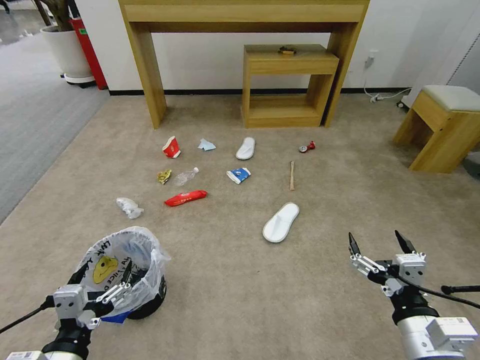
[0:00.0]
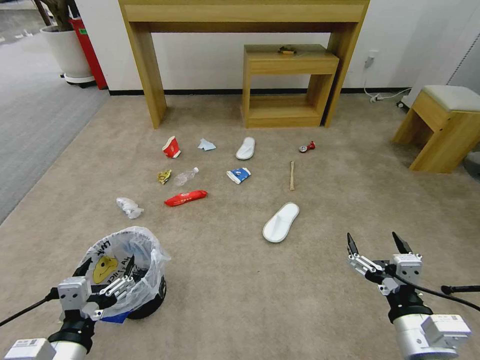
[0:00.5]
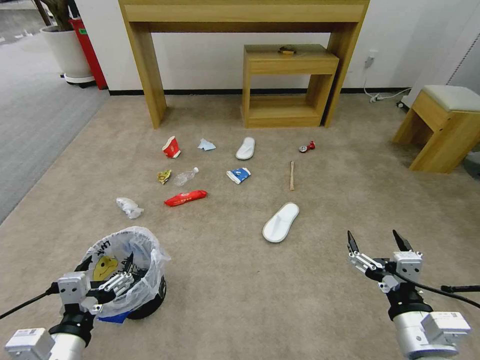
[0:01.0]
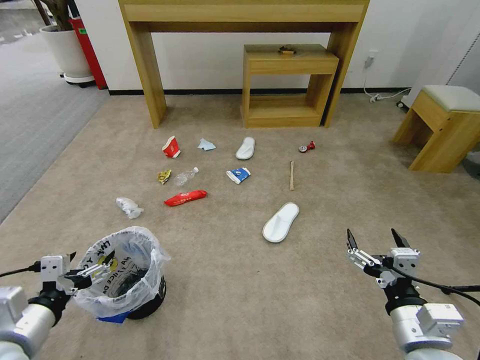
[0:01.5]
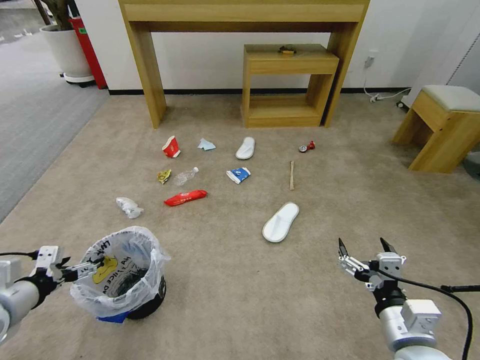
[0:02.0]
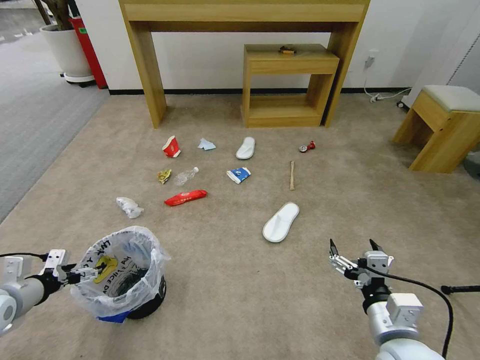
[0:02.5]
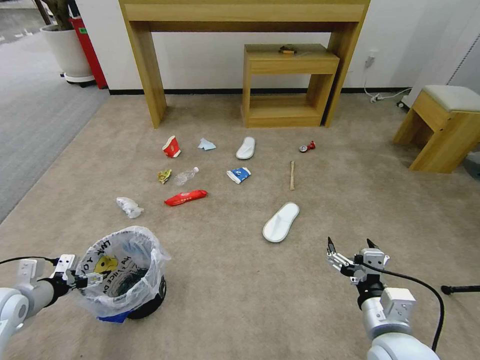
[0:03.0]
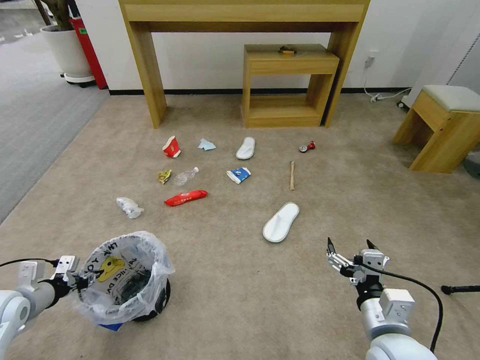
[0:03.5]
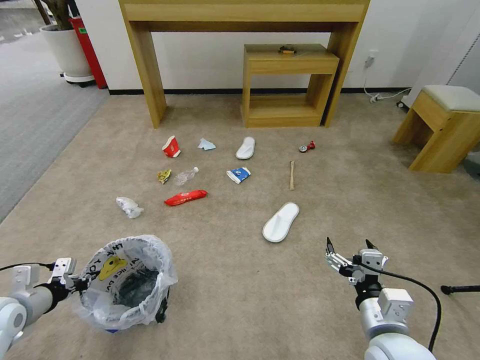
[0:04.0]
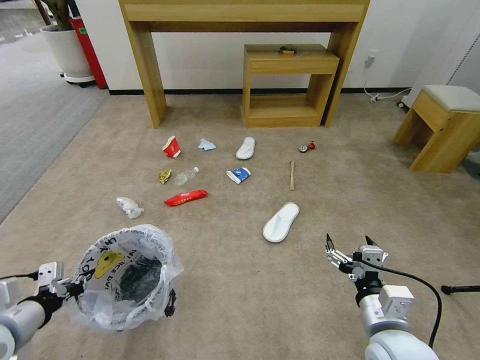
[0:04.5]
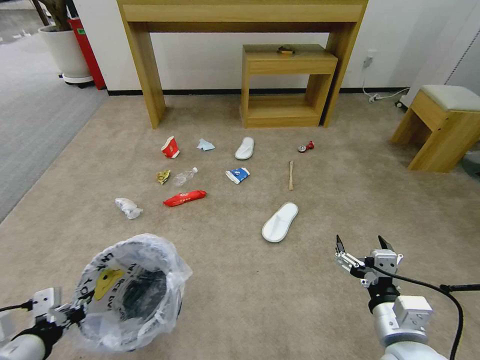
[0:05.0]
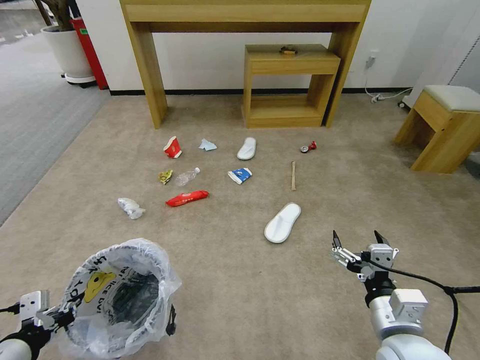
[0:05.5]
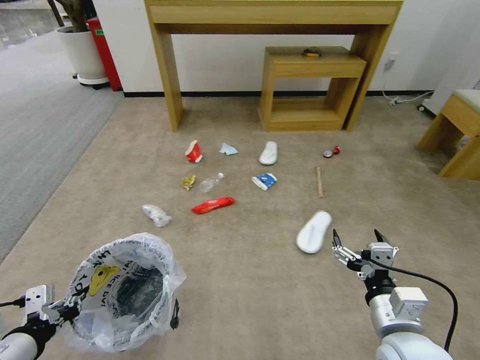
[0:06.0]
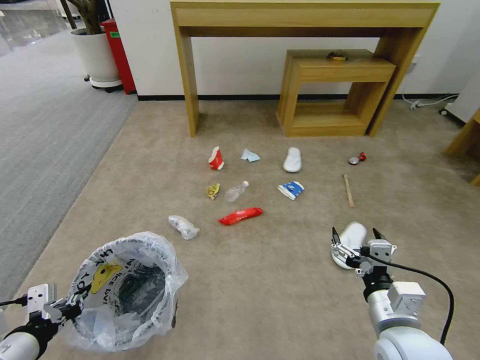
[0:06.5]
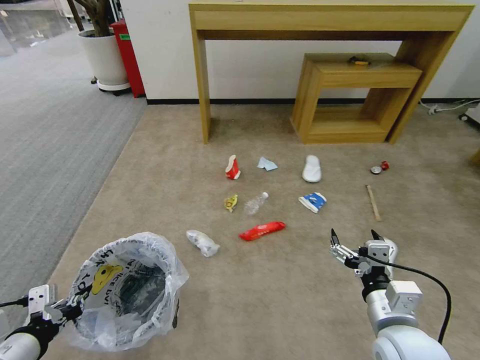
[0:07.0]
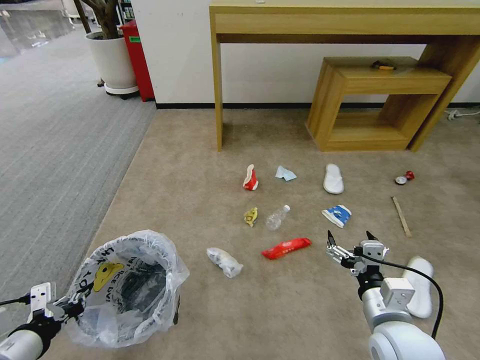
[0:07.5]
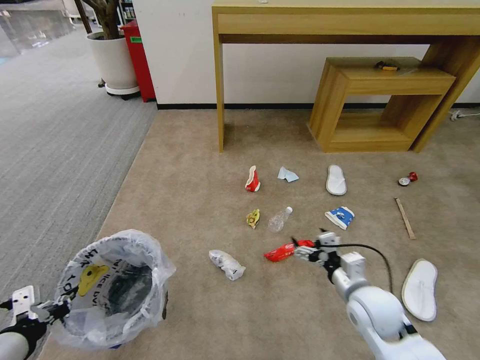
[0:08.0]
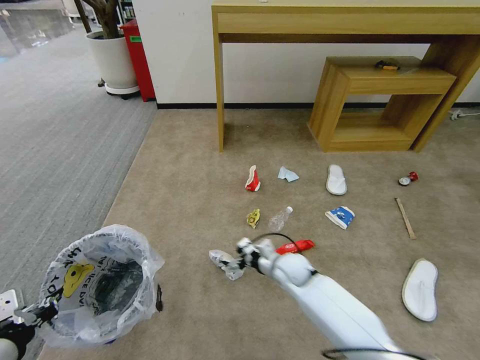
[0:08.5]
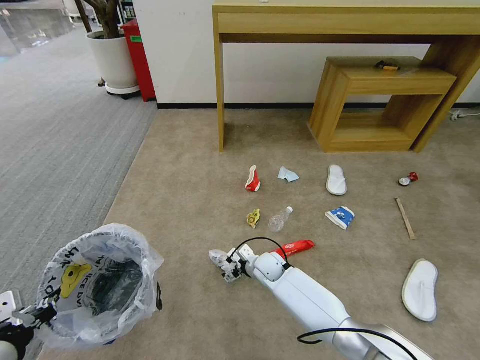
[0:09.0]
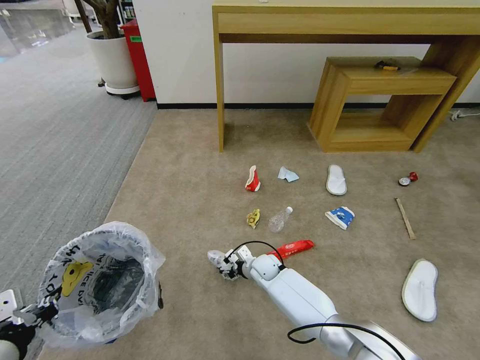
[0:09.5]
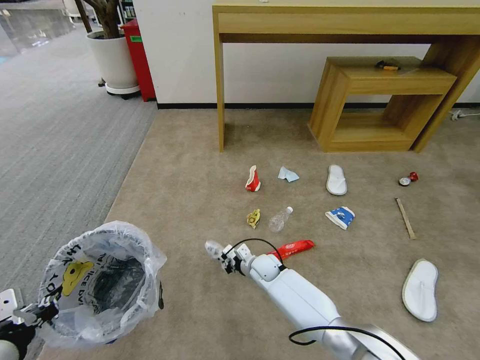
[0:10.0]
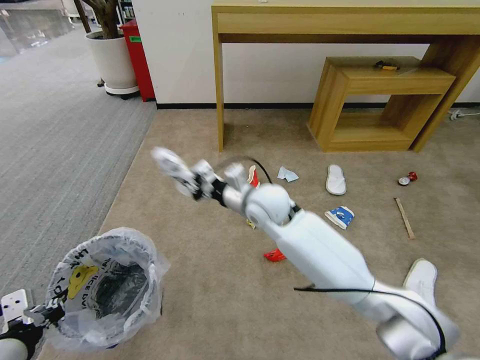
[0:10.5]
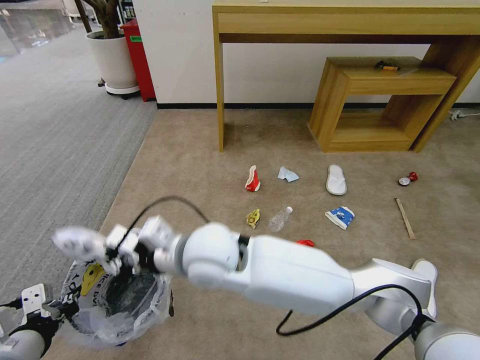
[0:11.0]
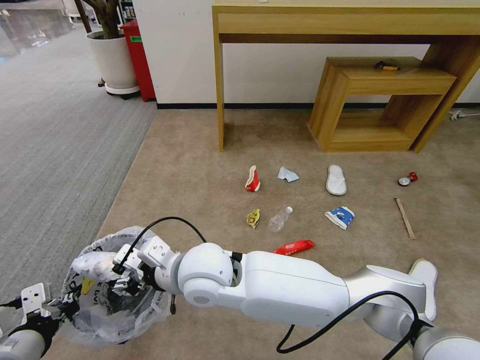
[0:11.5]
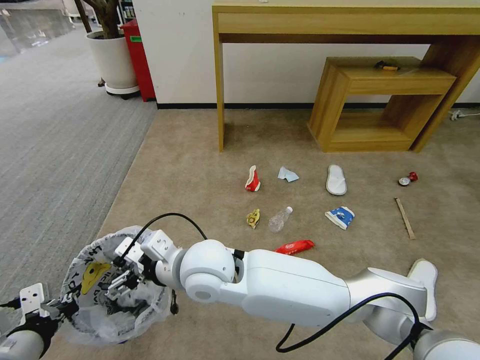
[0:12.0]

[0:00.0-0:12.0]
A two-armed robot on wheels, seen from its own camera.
Task of the whole recording: Pick up the trash bin and place the garbage on the floor into it.
0:02.0 to 0:04.0: The left gripper heads downward, covering roughly 5 cm, and closes its fingers.
0:04.0 to 0:06.0: The left gripper travels backward, to the right and upward by roughly 15 cm.
0:06.0 to 0:08.0: The right gripper goes about 10 cm forward and downward.
0:08.0 to 0:10.0: The right gripper moves to the left, forward and downward, about 30 cm, and closes its fingers.
0:10.0 to 0:12.0: The right gripper heads upward, to the left and backward, covering approximately 35 cm, and opens.

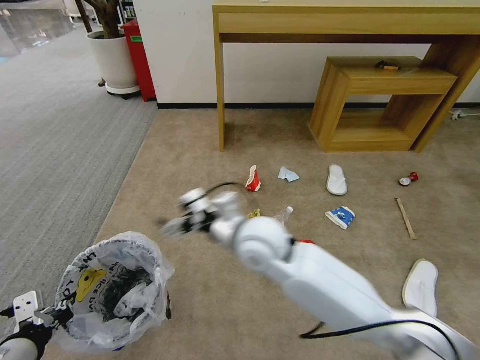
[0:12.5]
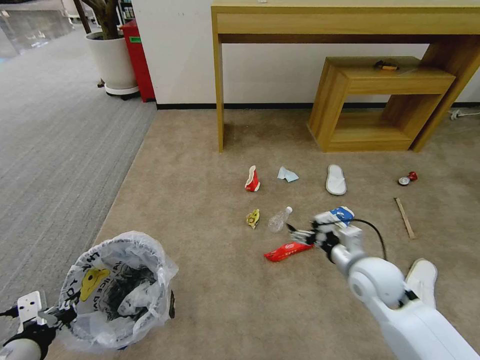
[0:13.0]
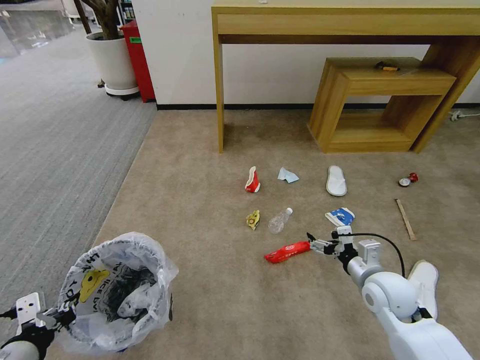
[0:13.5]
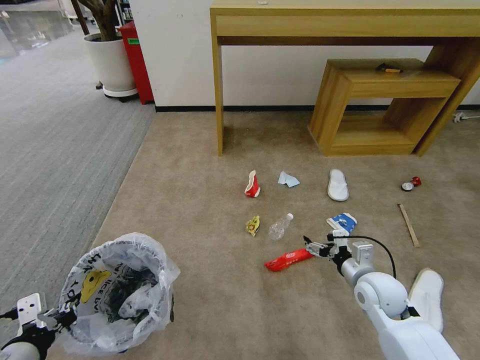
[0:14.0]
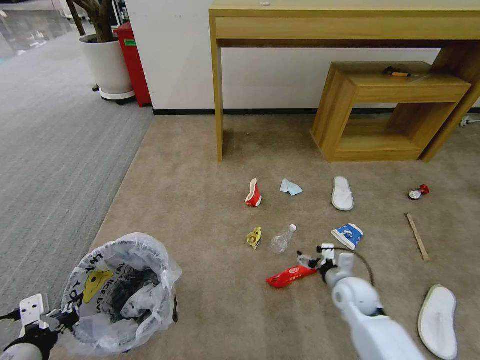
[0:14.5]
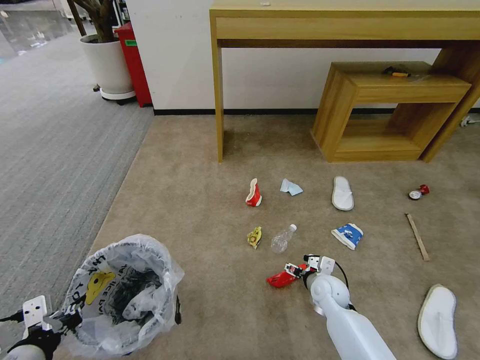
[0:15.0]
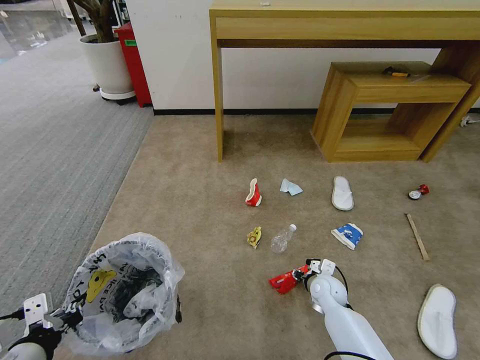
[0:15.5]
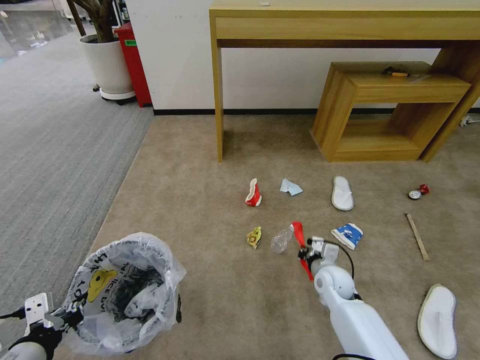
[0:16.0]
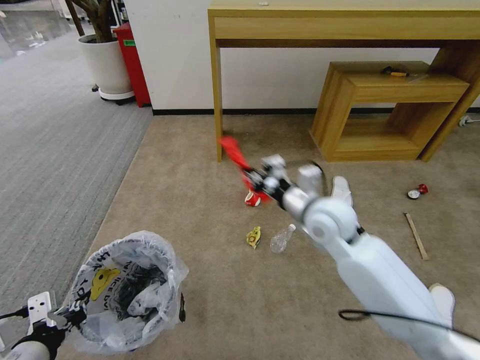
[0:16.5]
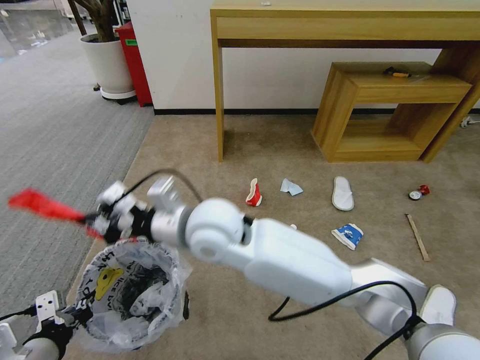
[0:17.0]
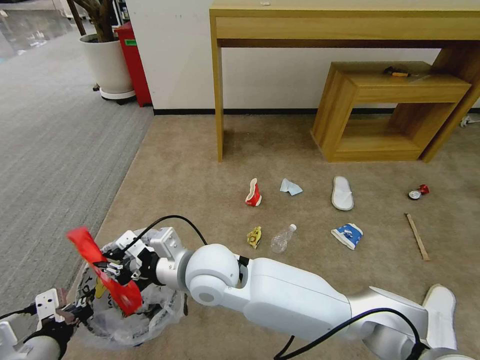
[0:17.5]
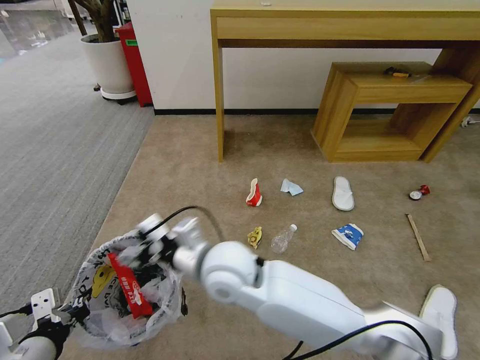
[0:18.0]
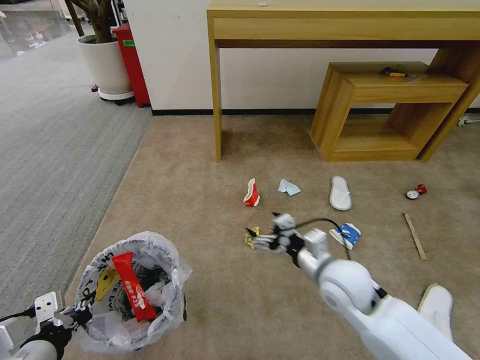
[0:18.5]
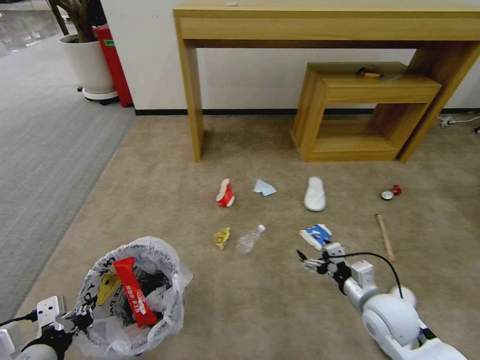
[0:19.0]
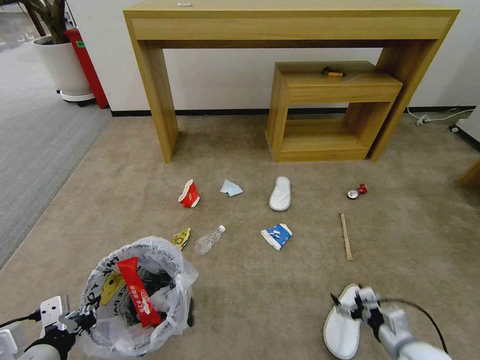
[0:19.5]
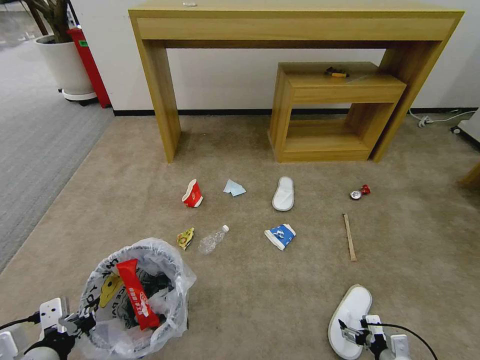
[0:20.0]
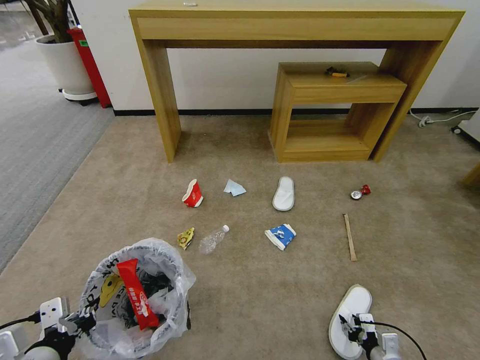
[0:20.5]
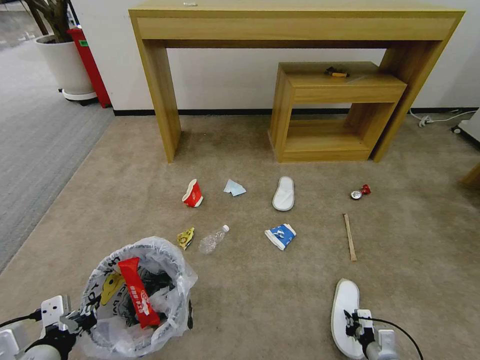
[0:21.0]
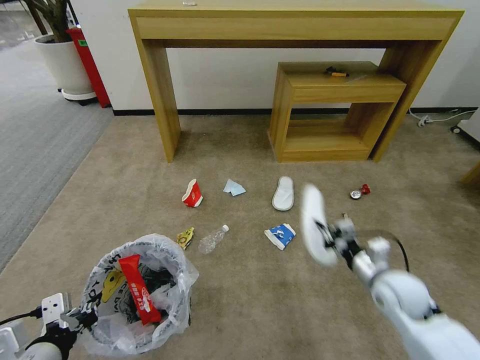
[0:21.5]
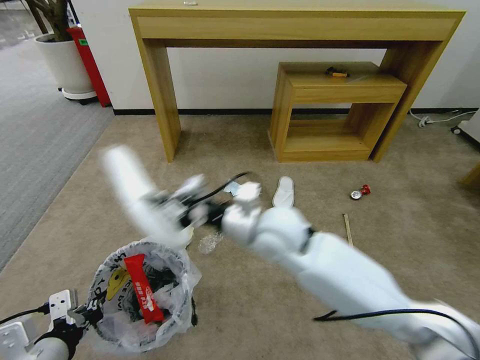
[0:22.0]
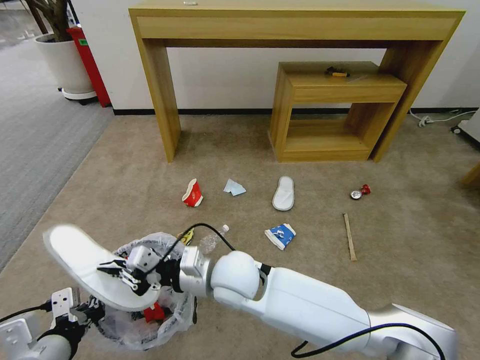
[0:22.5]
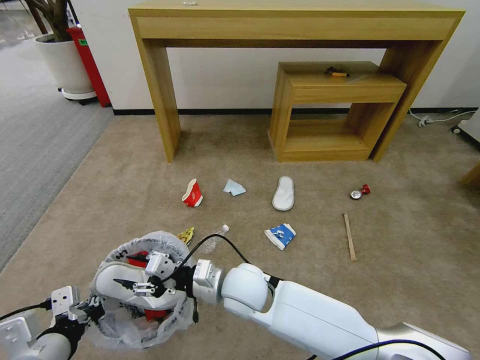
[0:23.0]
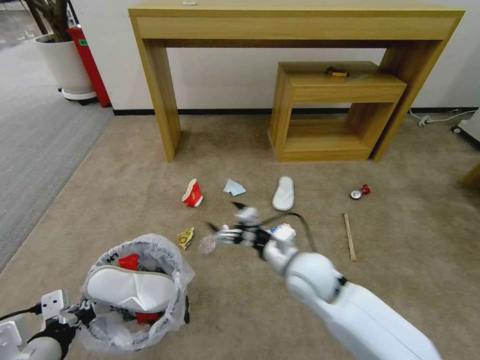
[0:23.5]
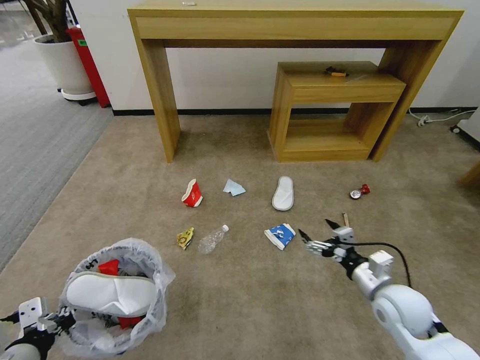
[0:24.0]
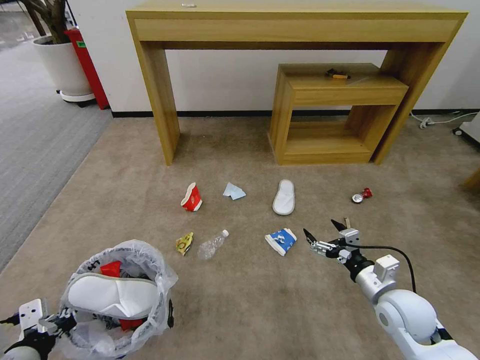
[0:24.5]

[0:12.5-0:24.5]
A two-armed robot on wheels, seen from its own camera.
Task of the whole recording: Pick up the trash bin and place the garbage on the floor into it.
0:12.5 to 0:14.5: The right gripper travels to the right and downward by about 35 cm.
0:14.5 to 0:16.5: The right gripper travels upward and to the left by roughly 25 cm, and closes its fingers.
0:16.5 to 0:18.5: The right gripper goes approximately 15 cm downward and backward, reaches some 20 cm to the left, then returns, and opens up.
0:18.5 to 0:20.5: The right gripper shifts roughly 30 cm downward, to the right and backward, and closes.
0:20.5 to 0:22.5: The right gripper is displaced to the left and upward by some 50 cm, and closes.
0:22.5 to 0:24.5: The right gripper goes about 35 cm to the right, and opens up. Meanwhile the left gripper ends up some 5 cm from where it was.

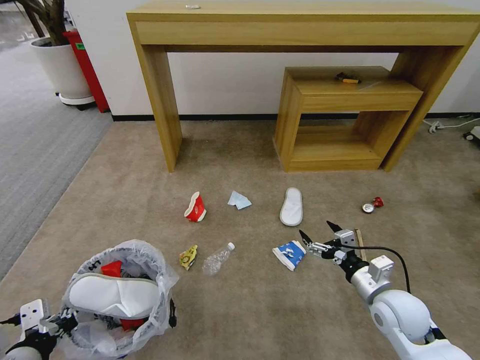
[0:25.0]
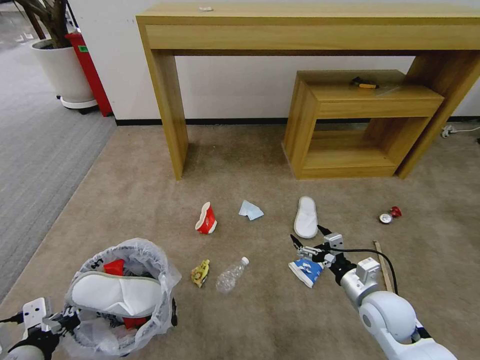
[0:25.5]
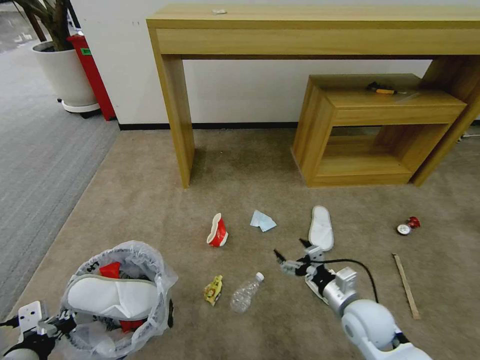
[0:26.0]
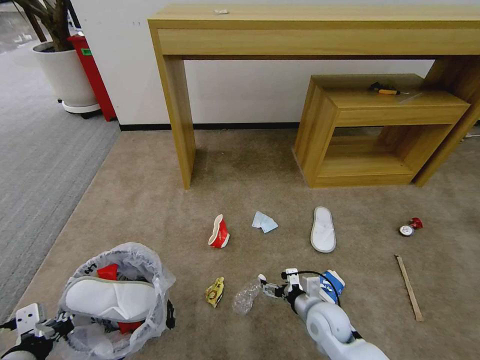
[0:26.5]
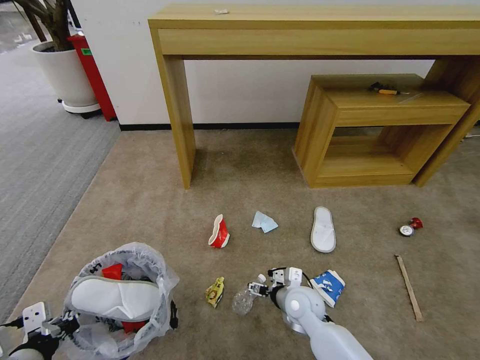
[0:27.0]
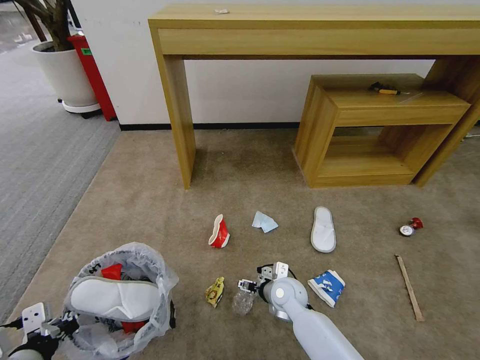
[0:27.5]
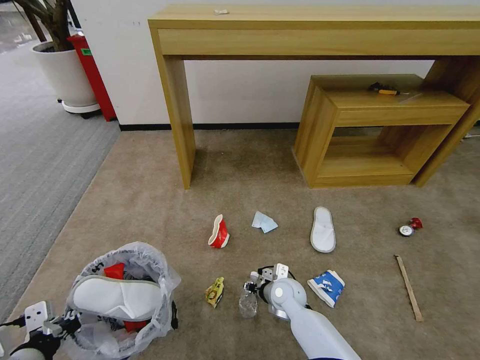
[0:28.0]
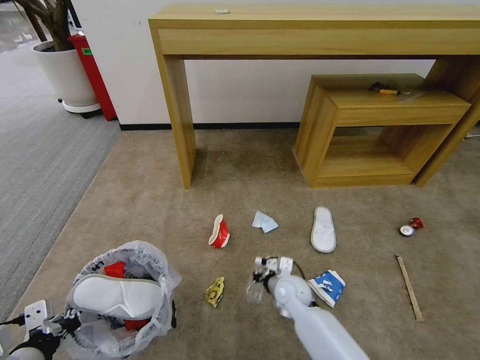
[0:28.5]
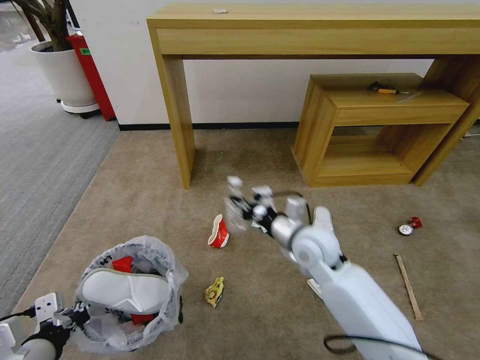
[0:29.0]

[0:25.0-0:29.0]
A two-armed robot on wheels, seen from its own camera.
Task of the whole recording: Pick up the trash bin and place the garbage on the floor into it.
0:25.0 to 0:27.0: The right gripper goes about 20 cm to the left and downward.
0:27.0 to 0:29.0: The right gripper goes roughly 15 cm upward, and closes.
